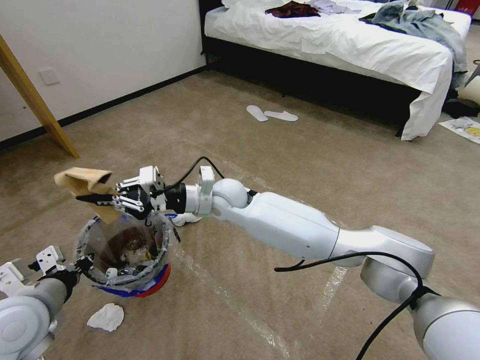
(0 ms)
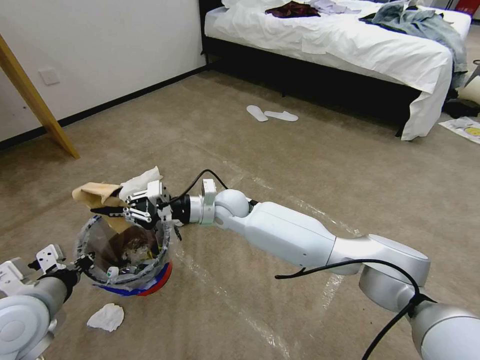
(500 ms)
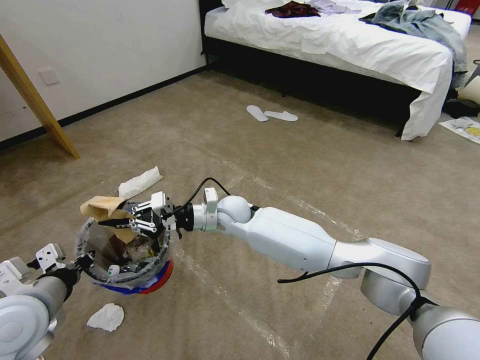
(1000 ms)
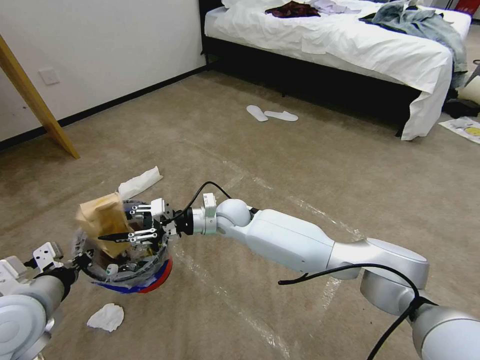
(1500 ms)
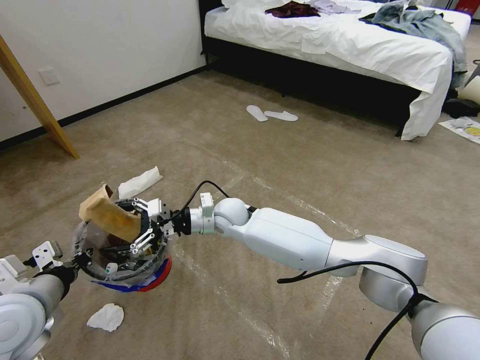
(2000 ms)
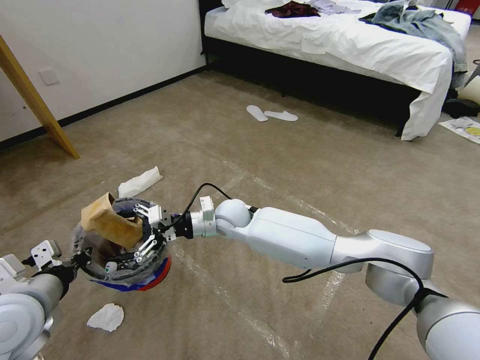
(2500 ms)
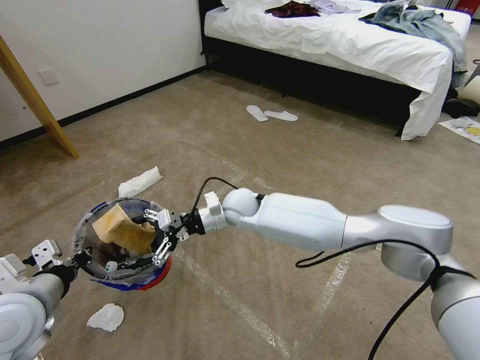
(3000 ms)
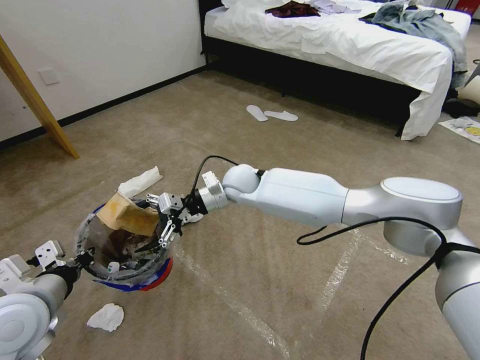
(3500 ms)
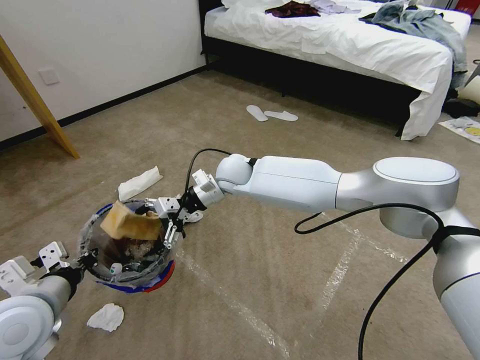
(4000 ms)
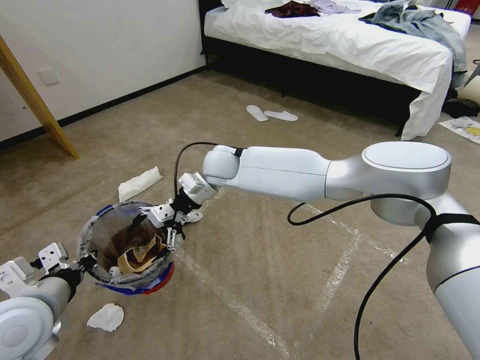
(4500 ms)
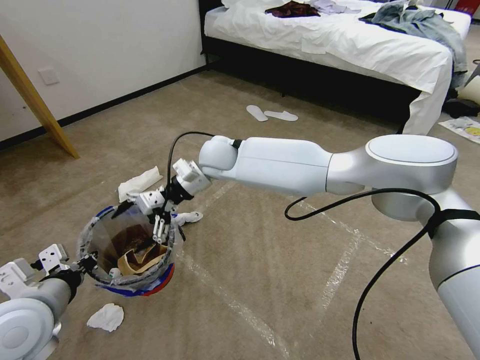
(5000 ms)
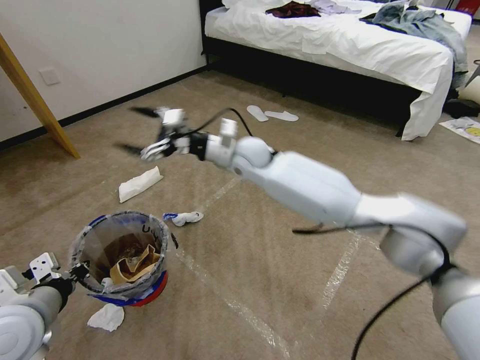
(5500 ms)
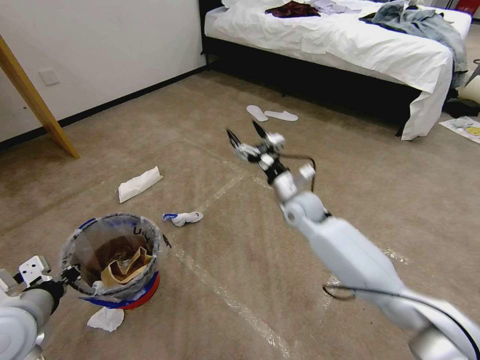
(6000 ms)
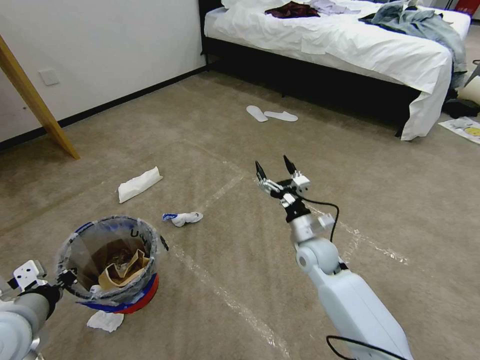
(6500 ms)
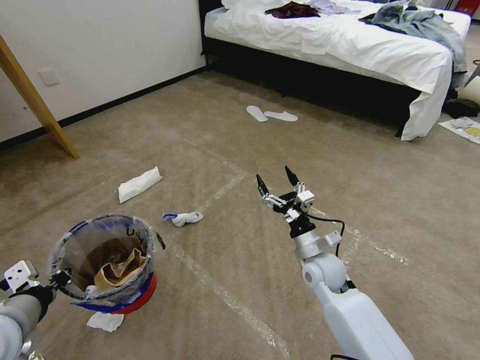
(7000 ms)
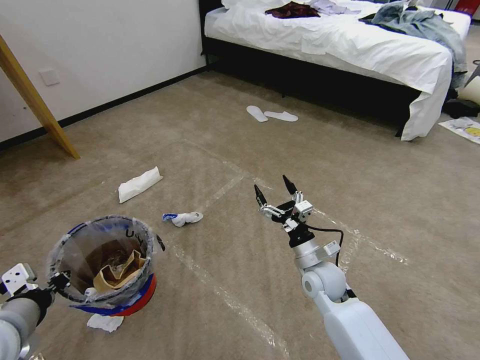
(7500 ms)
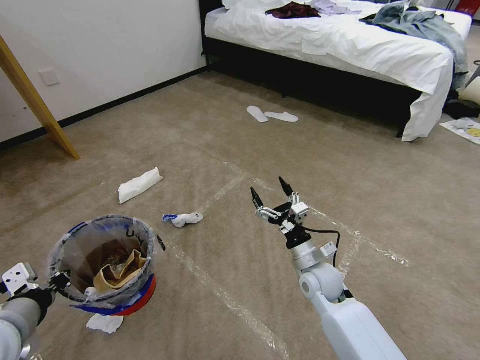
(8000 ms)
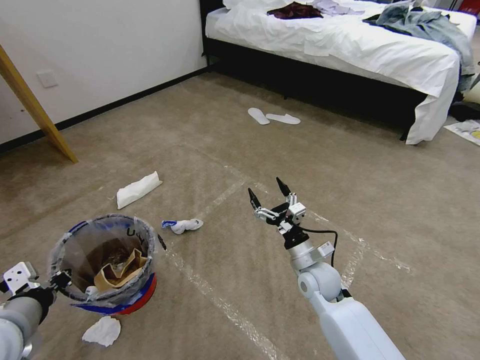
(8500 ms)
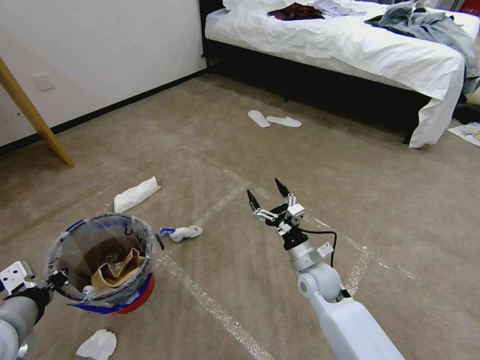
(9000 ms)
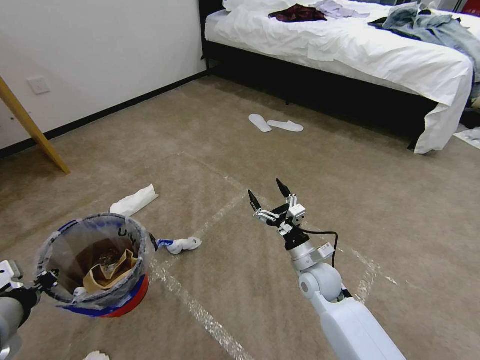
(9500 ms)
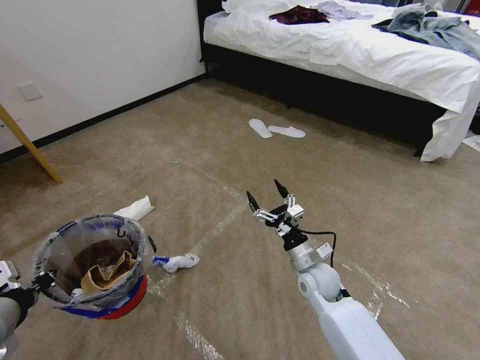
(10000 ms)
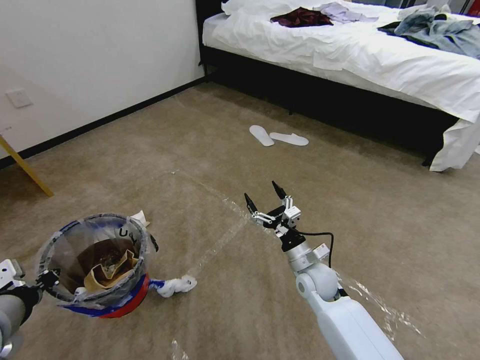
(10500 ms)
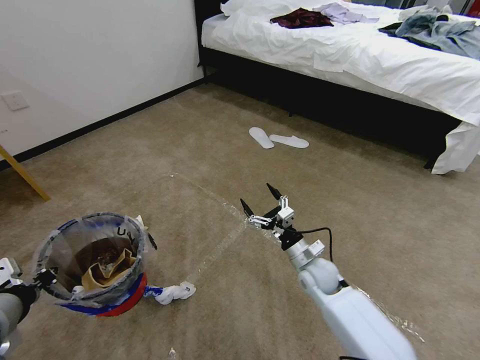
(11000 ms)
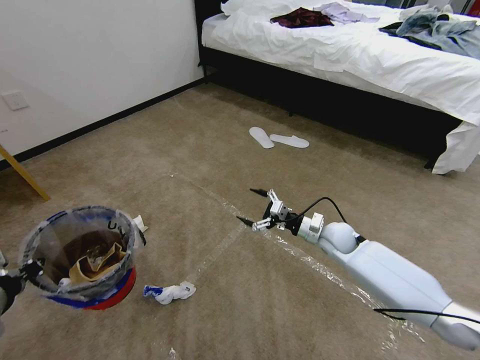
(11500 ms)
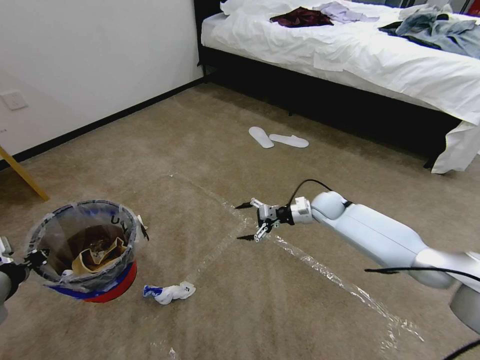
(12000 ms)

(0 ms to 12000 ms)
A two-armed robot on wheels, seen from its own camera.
Task of the whole recording: Pick up the trash bin and place the garbage on the floor into it.
0 ms - 2000 ms: The right gripper is displaced downward by approximately 5 cm, and opens its fingers.
2000 ms - 4000 ms: The right gripper heads upward and forward, covering about 10 cm.
4000 ms - 6000 ms: The right gripper is displaced to the right by some 15 cm.
6000 ms - 8000 ms: The right gripper shifts roughly 20 cm backward and downward.
10000 ms - 12000 ms: The right gripper is displaced forward by about 20 cm, while the left gripper changes place by approximately 5 cm.

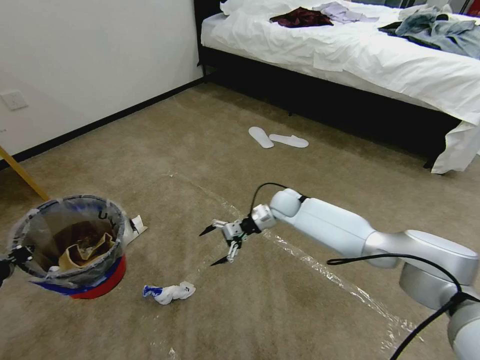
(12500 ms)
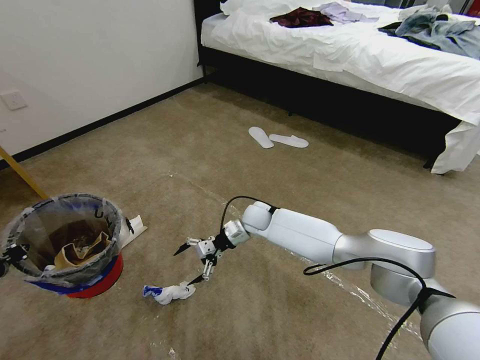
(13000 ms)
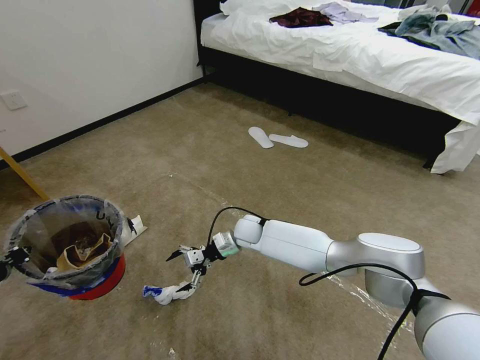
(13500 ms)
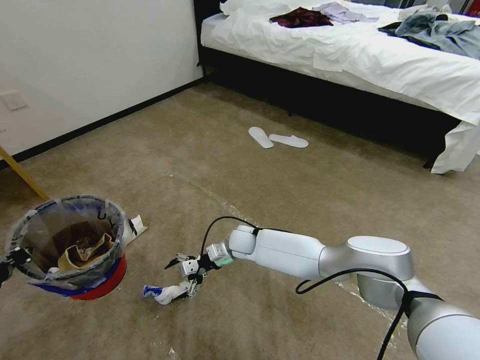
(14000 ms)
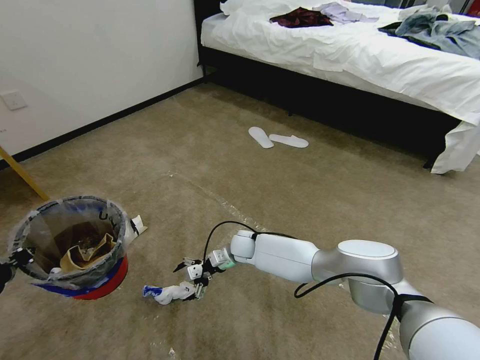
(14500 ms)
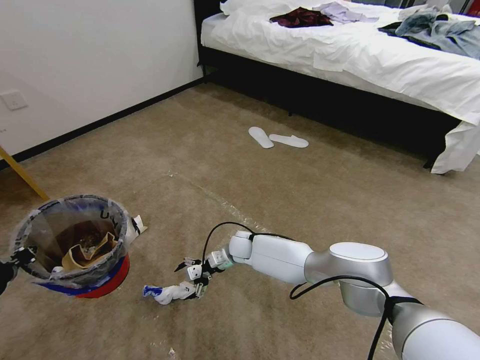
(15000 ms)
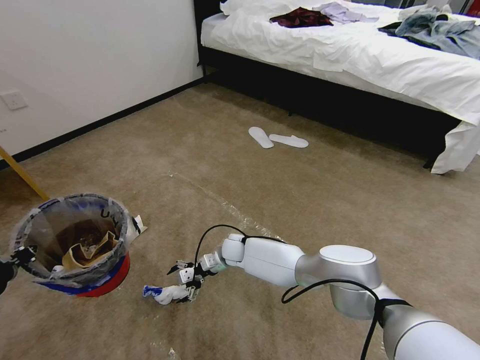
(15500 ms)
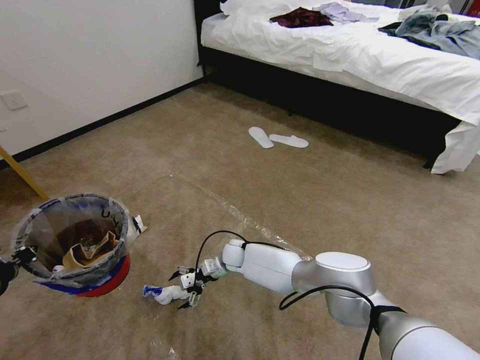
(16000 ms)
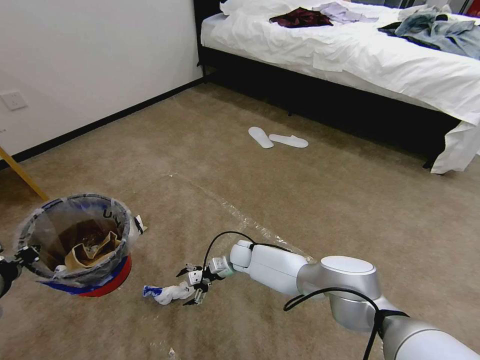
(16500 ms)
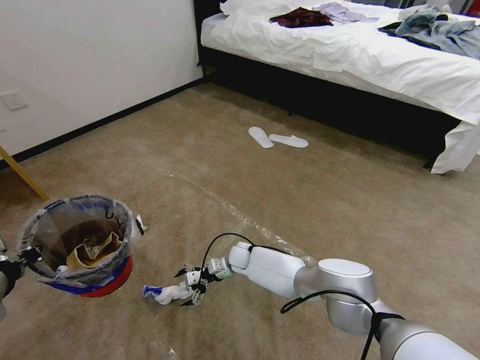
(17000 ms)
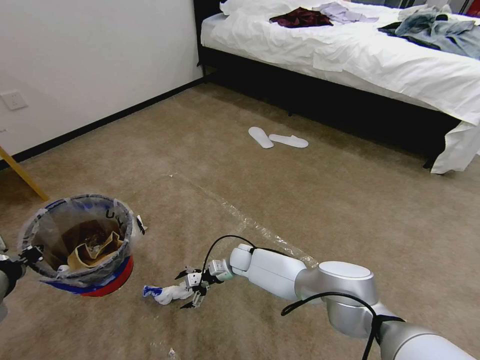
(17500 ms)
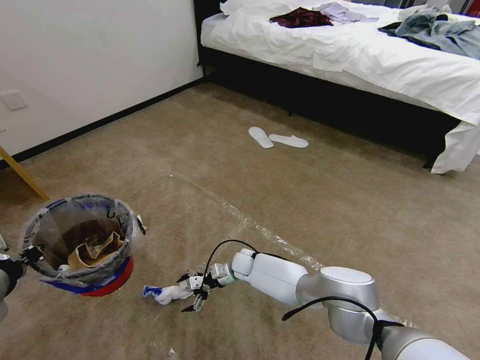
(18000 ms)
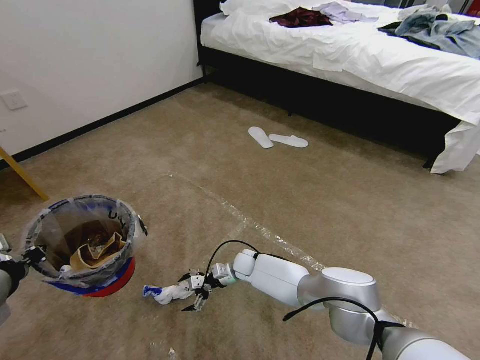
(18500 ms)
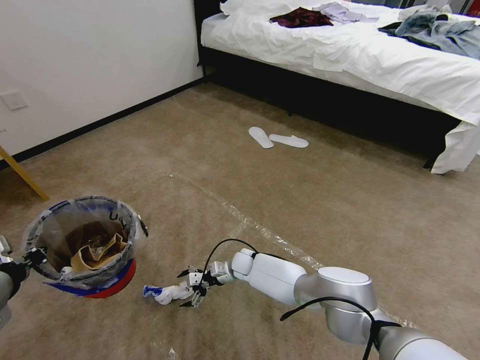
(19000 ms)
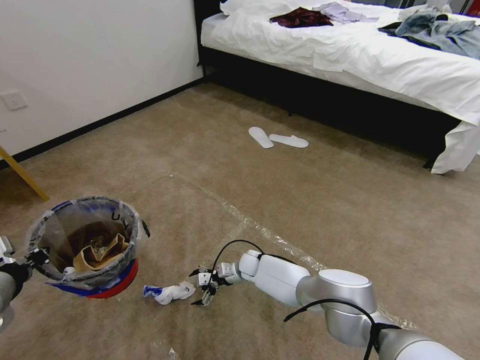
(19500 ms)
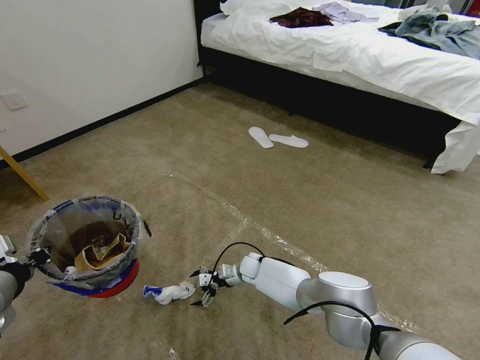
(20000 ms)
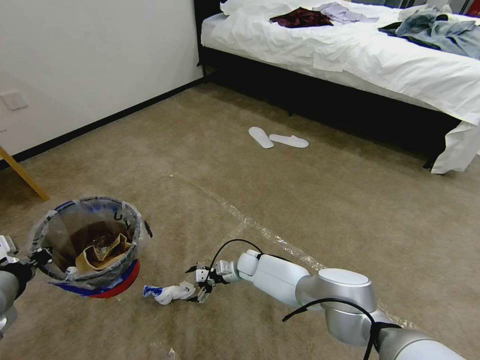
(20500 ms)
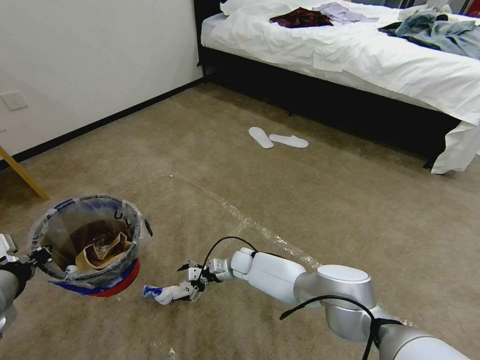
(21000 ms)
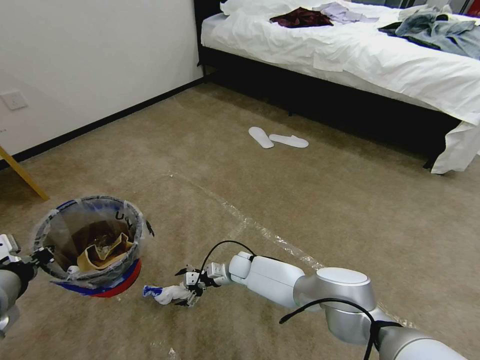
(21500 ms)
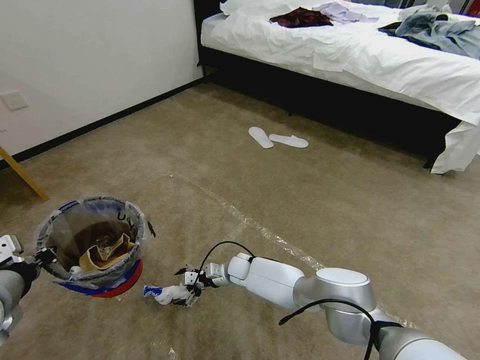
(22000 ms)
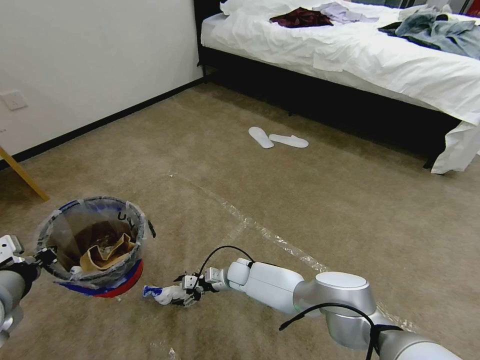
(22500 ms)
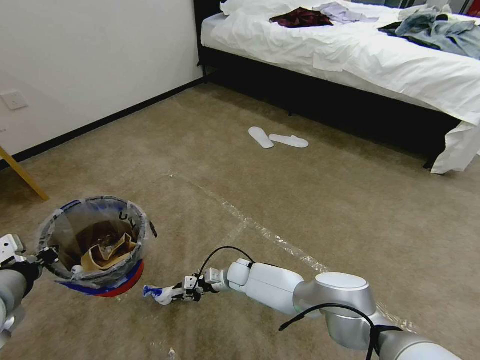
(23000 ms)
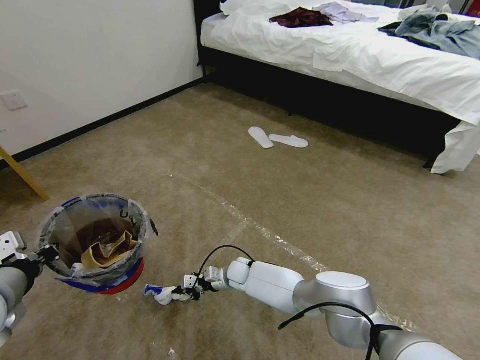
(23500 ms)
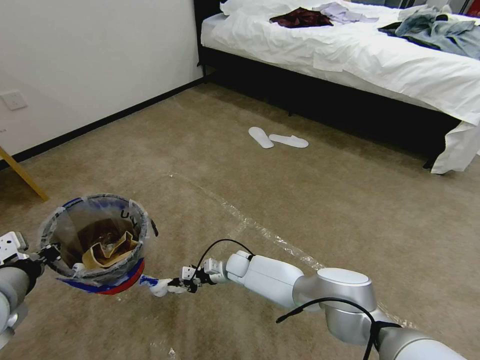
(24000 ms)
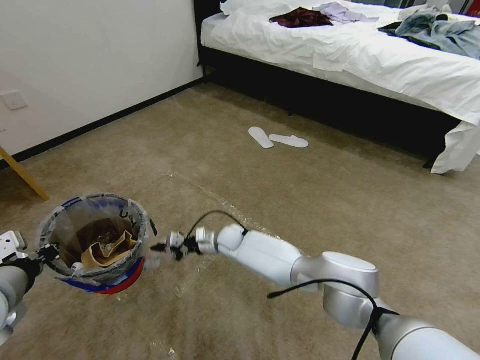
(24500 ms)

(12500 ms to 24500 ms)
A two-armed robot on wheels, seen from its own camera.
Task of the whole recording: Pick up the trash bin and place the garbage on the floor into it.
12500 ms - 14500 ms: The right gripper travels to the left, downward and backward by some 20 cm.
14500 ms - 16500 ms: The grippers make only small movements.
16500 ms - 18500 ms: The grippers make only small movements.
18500 ms - 22500 ms: There are only small adjustments of the grippers.
22500 ms - 24500 ms: The right gripper shifts about 10 cm upward and forward, and closes.

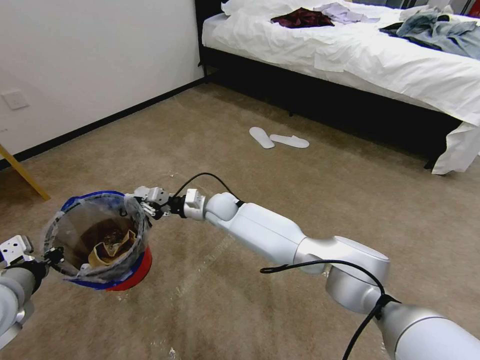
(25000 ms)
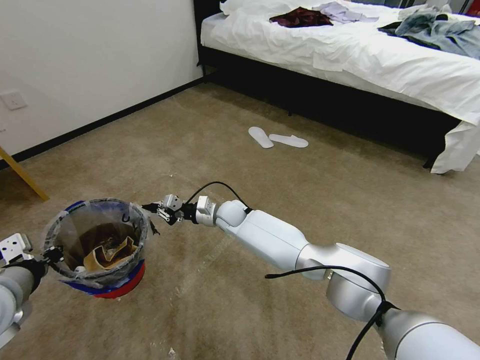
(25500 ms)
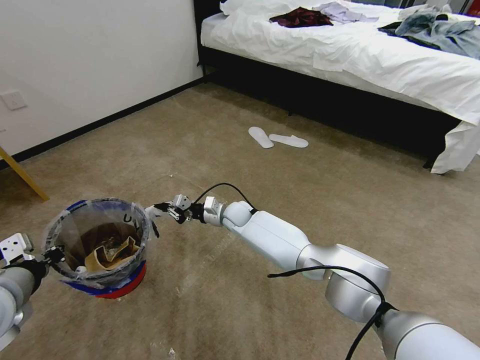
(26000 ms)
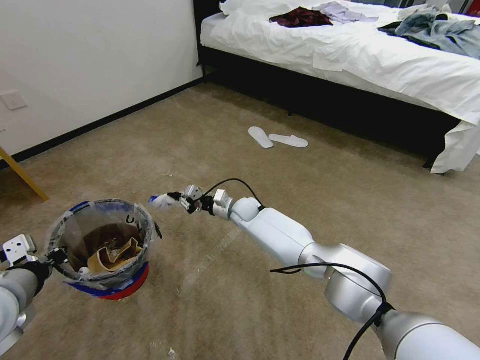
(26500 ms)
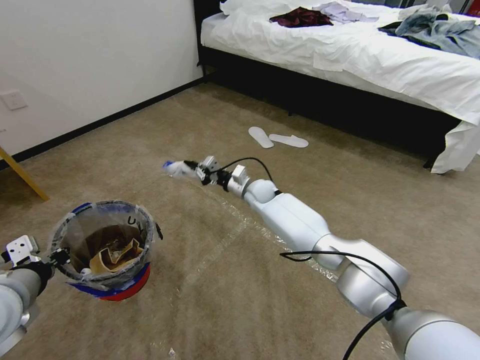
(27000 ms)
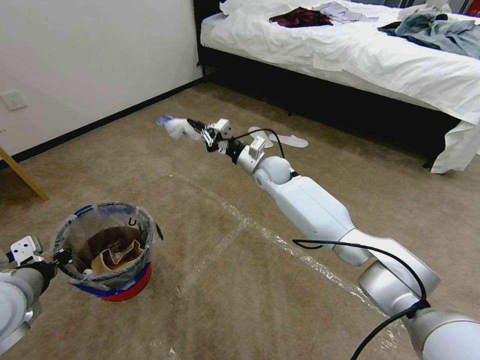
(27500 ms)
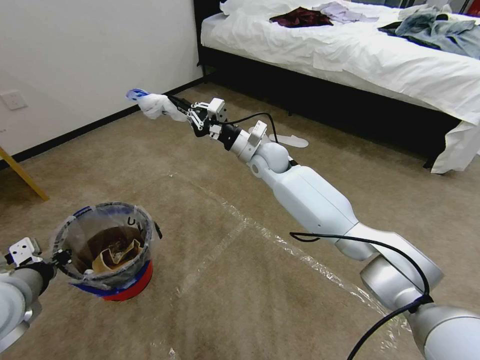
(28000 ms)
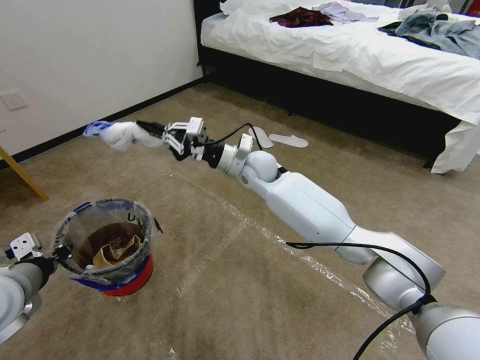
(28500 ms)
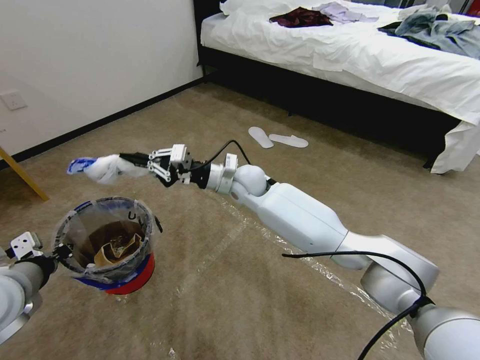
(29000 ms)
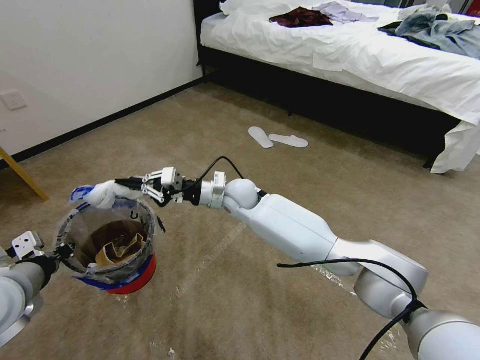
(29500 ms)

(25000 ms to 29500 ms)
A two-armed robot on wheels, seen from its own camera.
Task of the whole recording: Pick up the trash bin and place the garbage on the floor into it.
25000 ms - 27000 ms: The right gripper moves to the right and forward, roughly 15 cm.
27000 ms - 29500 ms: The right gripper heads upward, backward and to the left, covering some 15 cm.
